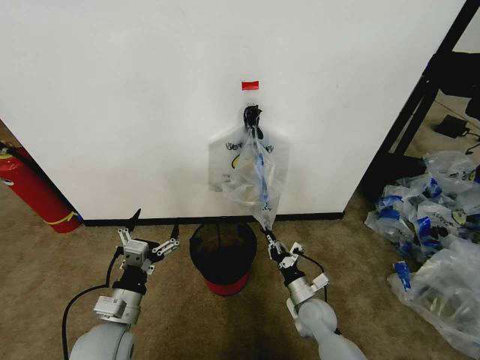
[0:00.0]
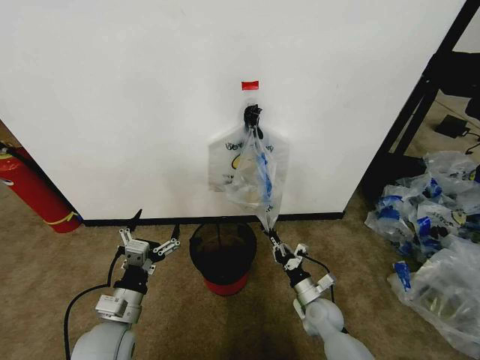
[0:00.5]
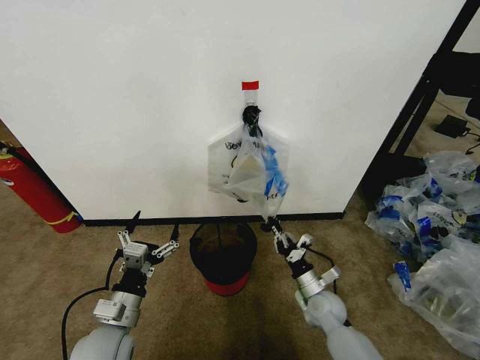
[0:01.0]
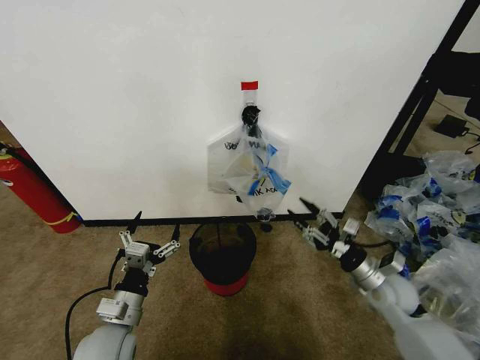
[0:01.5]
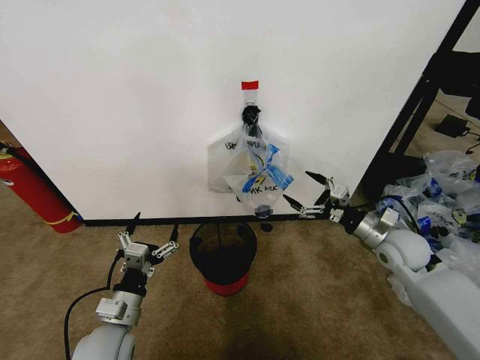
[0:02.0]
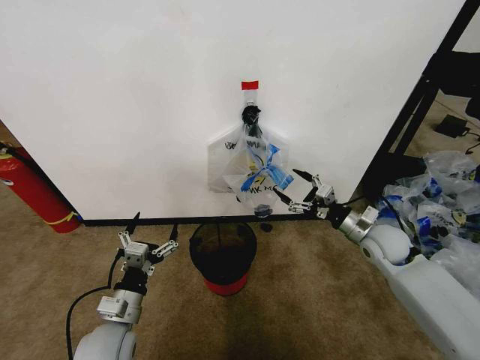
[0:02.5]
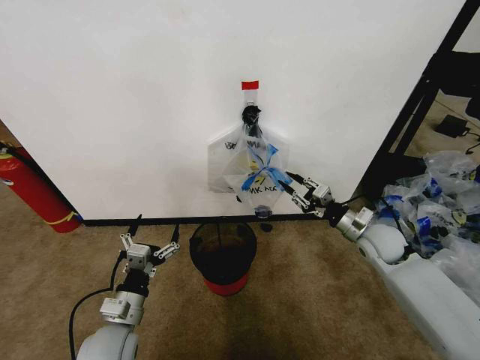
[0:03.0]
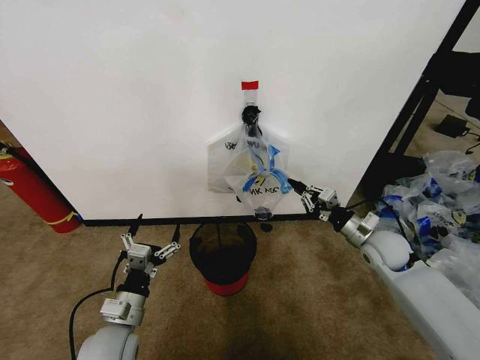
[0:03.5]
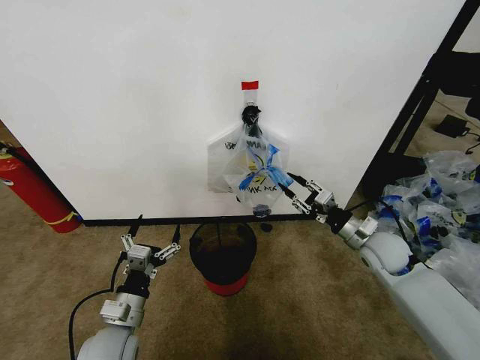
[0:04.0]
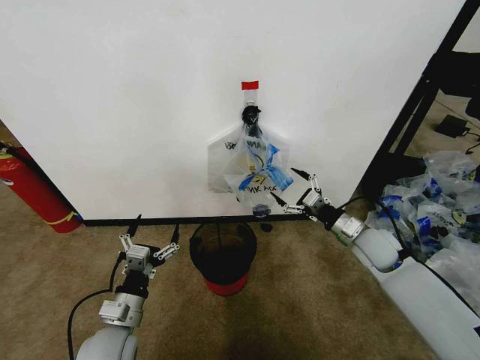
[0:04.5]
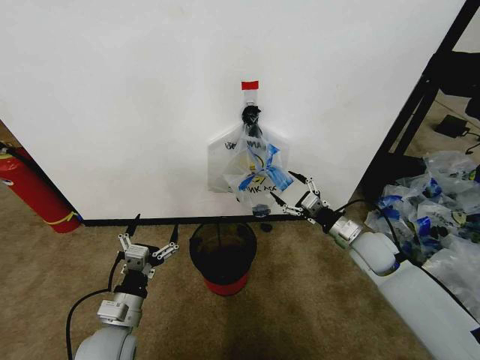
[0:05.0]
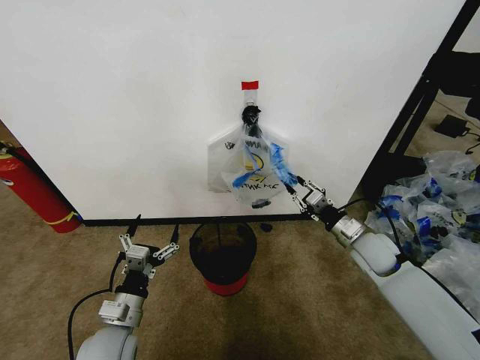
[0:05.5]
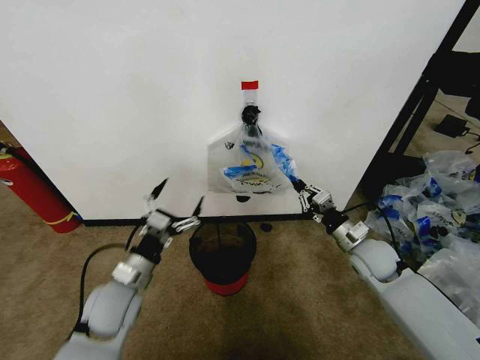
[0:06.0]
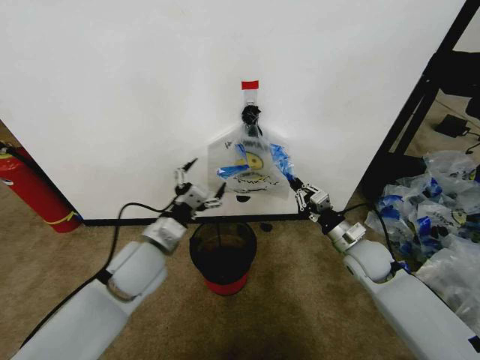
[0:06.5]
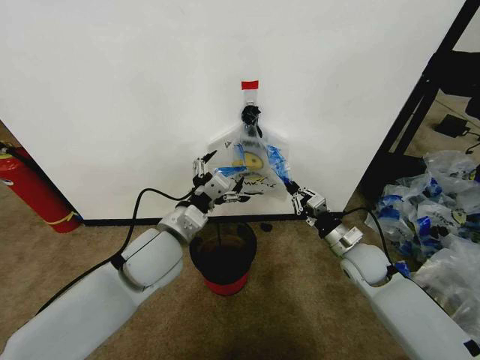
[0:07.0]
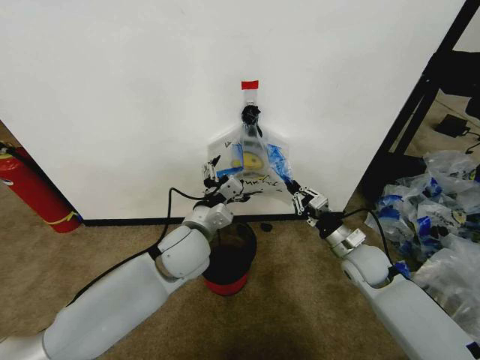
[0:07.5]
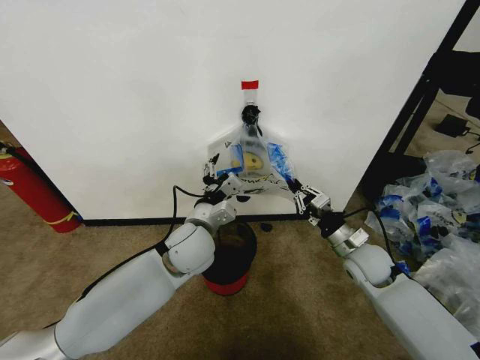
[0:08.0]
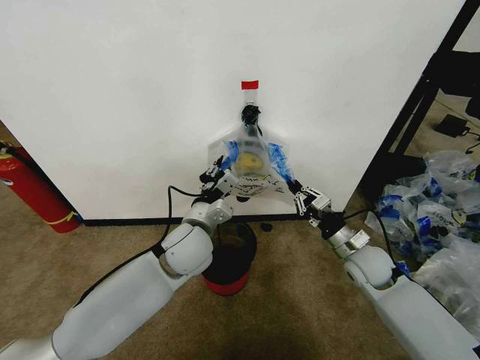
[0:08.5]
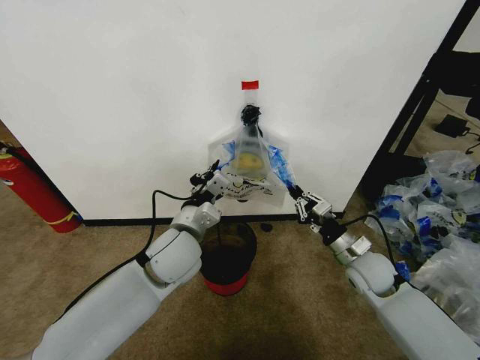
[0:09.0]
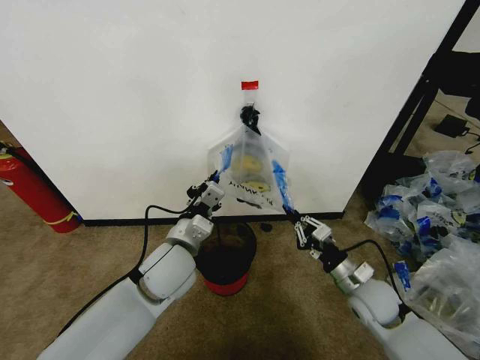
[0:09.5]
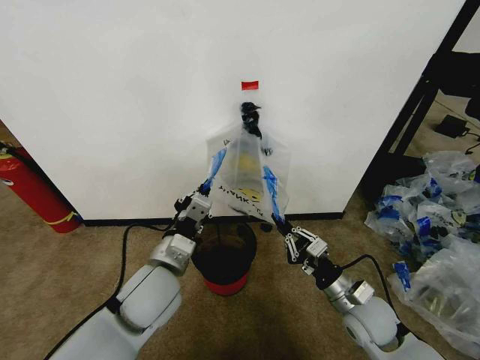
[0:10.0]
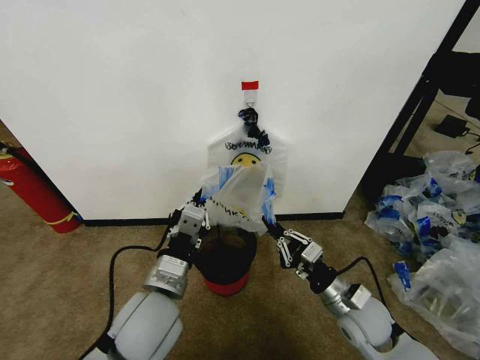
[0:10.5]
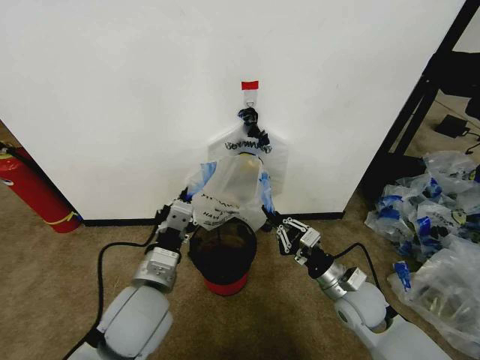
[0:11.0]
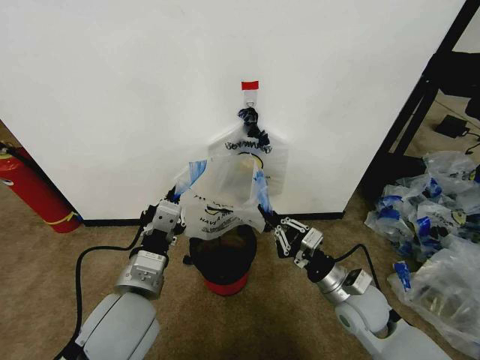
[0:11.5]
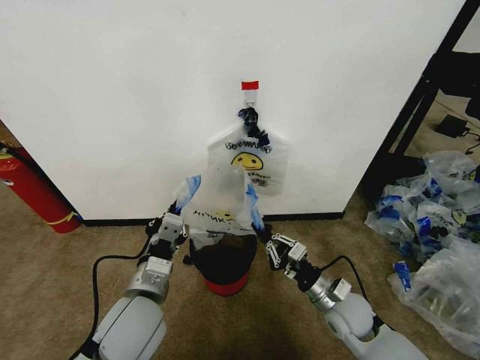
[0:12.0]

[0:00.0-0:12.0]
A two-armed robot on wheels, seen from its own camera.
Task of the whole recording: Pick up the garbage bag from the wall and place it over the trash bin.
0:00.0 to 0:02.0: The right gripper moves upward and to the right, approximately 25 cm, and opens up.
0:02.0 to 0:04.0: The right gripper closes up.
0:04.0 to 0:06.0: The right gripper opens, then closes once more. Meanwhile the left gripper shifts approximately 5 cm forward.
0:06.0 to 0:08.0: The left gripper is displaced to the right, forward and upward by approximately 20 cm.
0:08.0 to 0:10.0: The right gripper goes about 10 cm backward; the left gripper travels backward and to the left by roughly 10 cm, and closes.
0:10.0 to 0:12.0: The left gripper is displaced backward by roughly 5 cm.

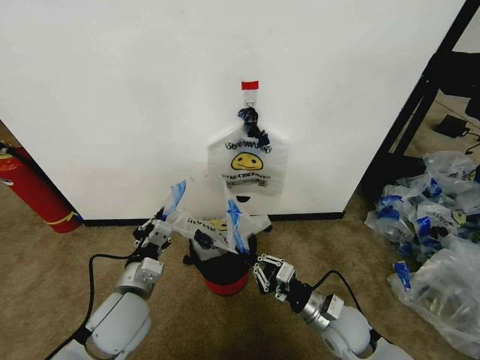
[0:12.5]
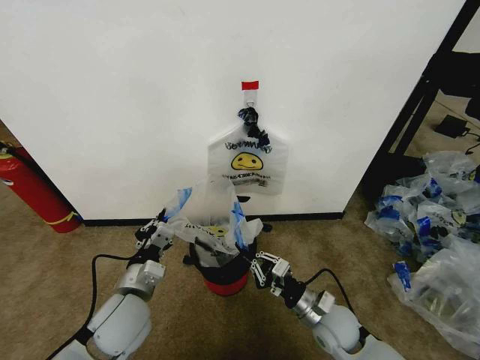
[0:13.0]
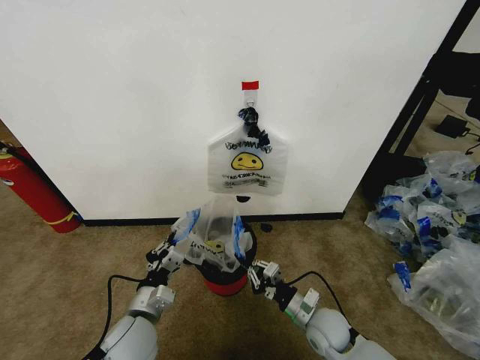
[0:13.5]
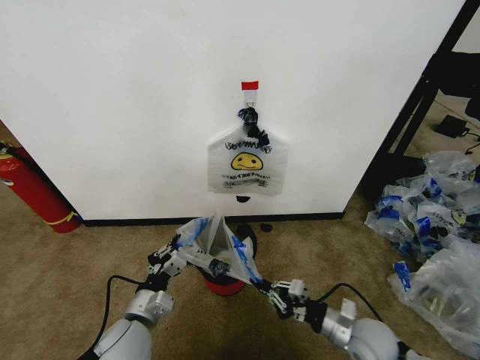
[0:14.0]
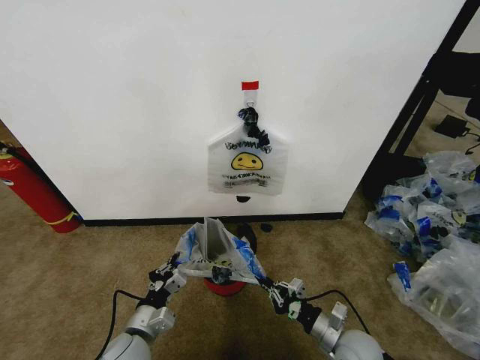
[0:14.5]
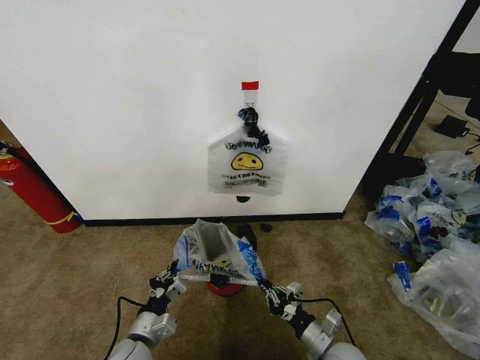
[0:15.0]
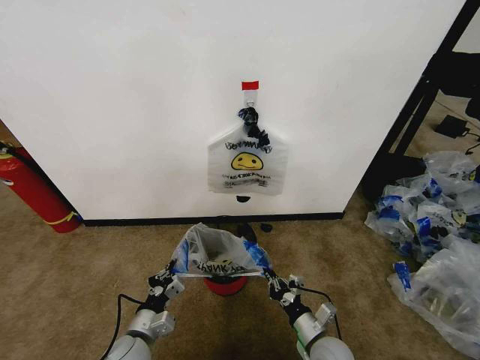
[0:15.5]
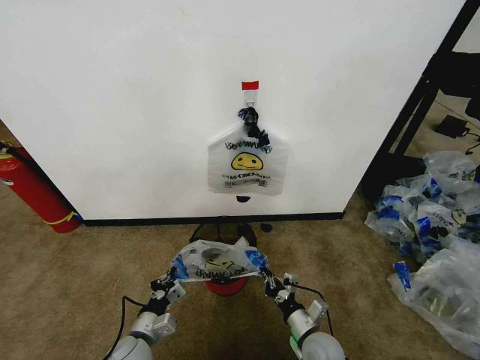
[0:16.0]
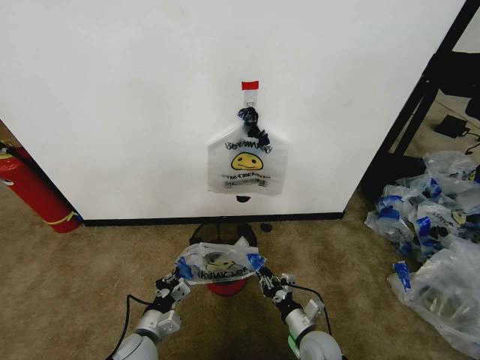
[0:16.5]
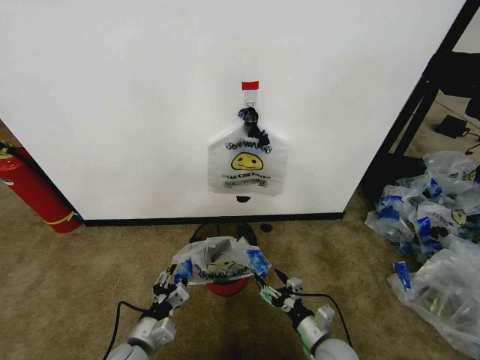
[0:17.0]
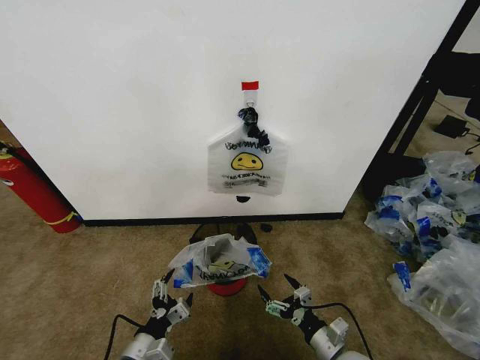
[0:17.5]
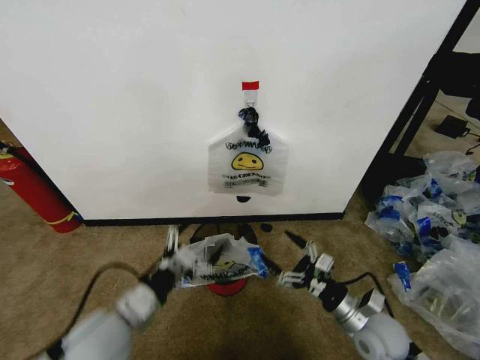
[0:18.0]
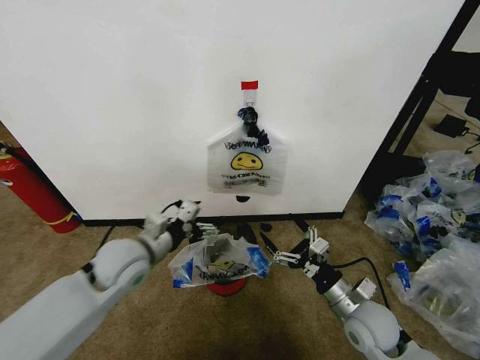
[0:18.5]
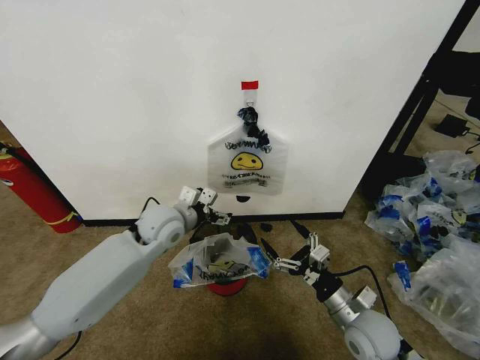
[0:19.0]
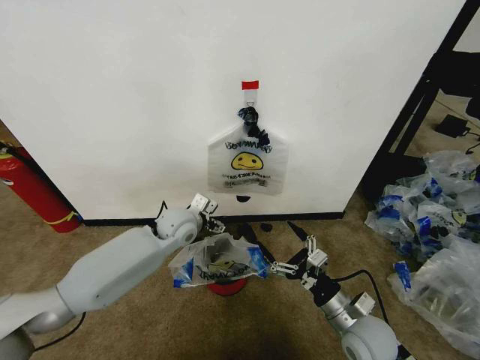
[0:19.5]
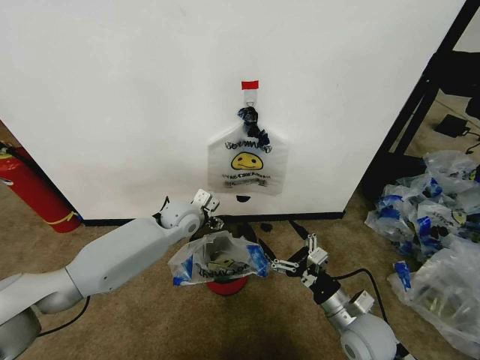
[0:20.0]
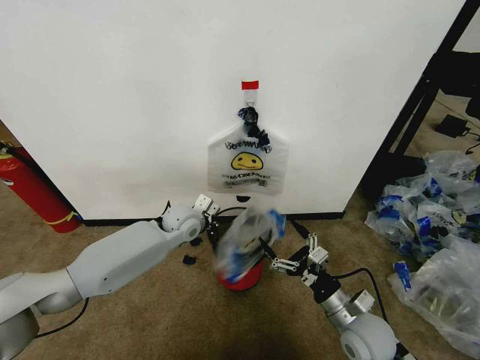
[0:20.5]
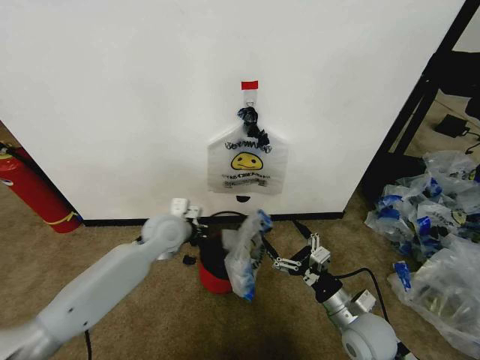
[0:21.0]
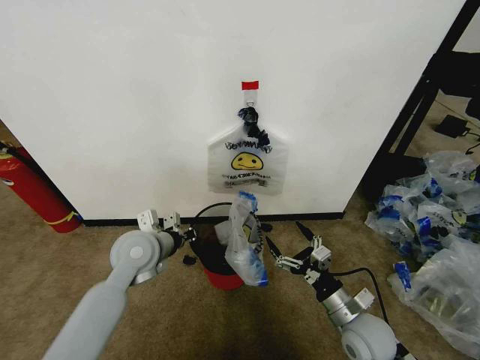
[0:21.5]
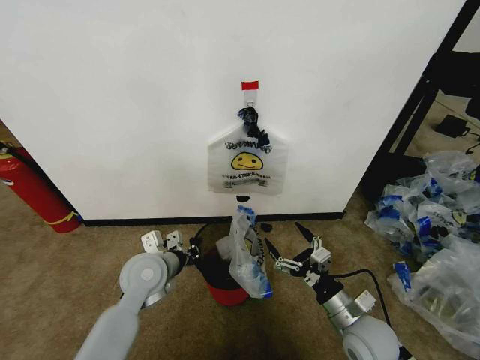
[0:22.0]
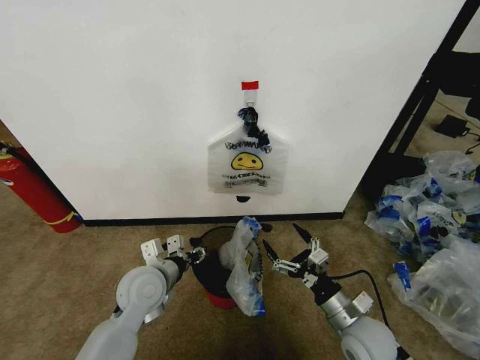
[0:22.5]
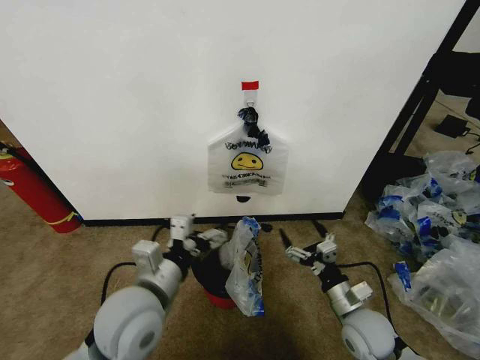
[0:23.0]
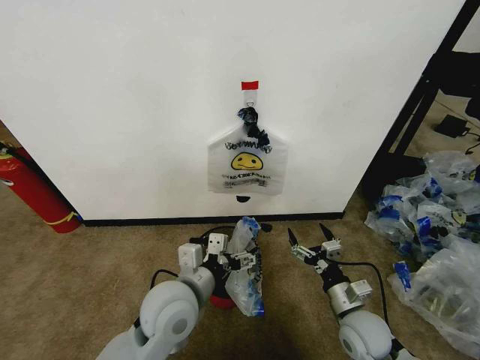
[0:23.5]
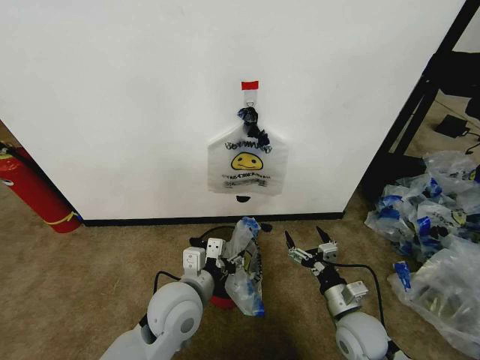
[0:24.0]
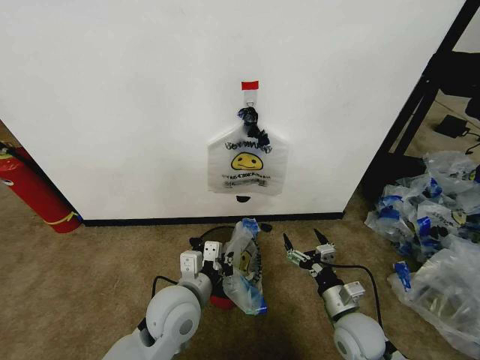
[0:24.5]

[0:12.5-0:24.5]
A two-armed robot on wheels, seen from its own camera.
Task of the whole recording: Pick up the garbage bag from the wall and place it over the trash bin.
0:12.5 to 0:14.5: The right gripper shifts some 5 cm downward. Meanwhile the left gripper travels downward by roughly 10 cm.
0:14.5 to 0:16.5: The right gripper moves to the left and downward, about 10 cm, while the left gripper heads downward, covering approximately 5 cm.
0:16.5 to 0:18.5: The right gripper is displaced upward and to the right by about 15 cm, and opens its fingers; the left gripper travels upward and forward by roughly 25 cm, and opens its fingers.
0:18.5 to 0:20.5: The left gripper heads forward and to the right, covering about 15 cm, and closes.
0:20.5 to 0:22.5: The left gripper heads backward, covering about 15 cm.
0:22.5 to 0:24.5: The left gripper goes some 10 cm to the right and backward, reaches about 10 cm upward, then returns, and closes its fingers.

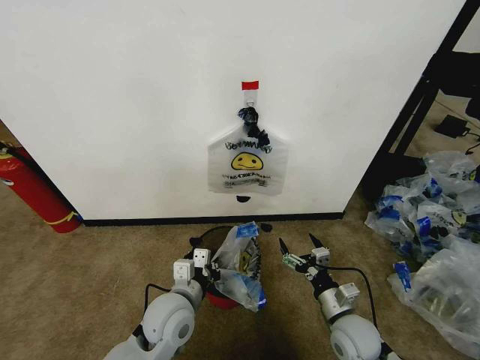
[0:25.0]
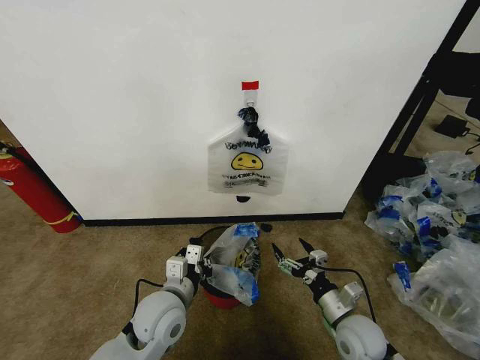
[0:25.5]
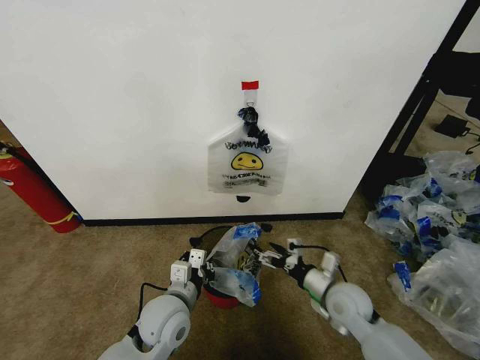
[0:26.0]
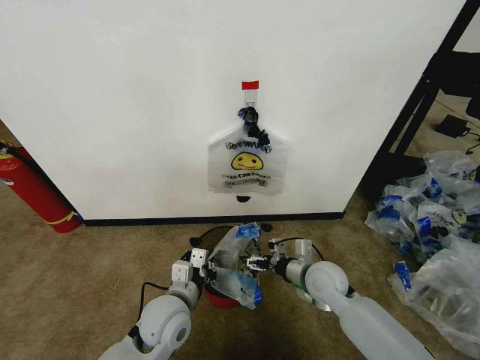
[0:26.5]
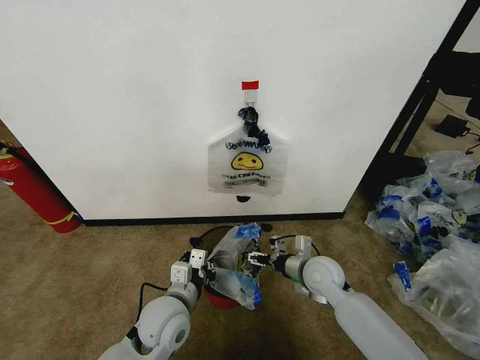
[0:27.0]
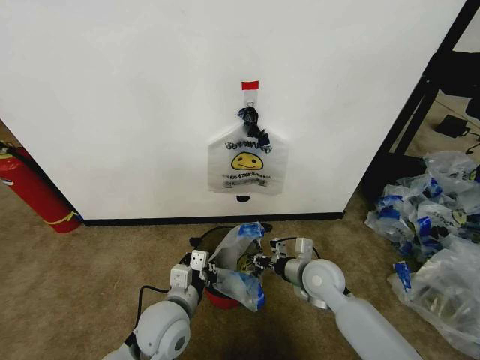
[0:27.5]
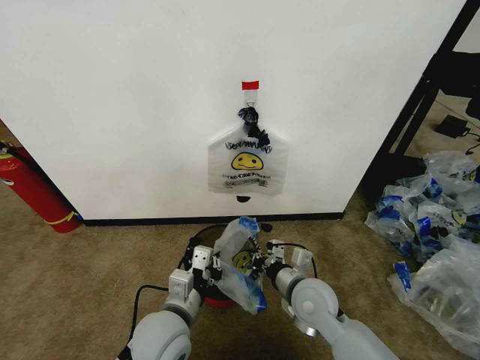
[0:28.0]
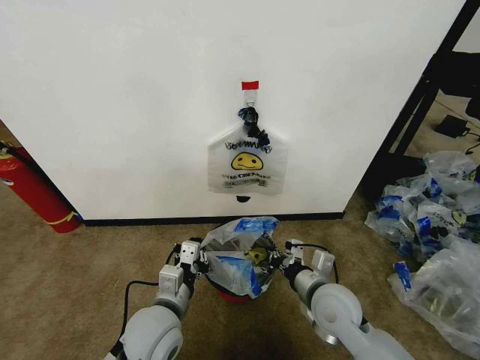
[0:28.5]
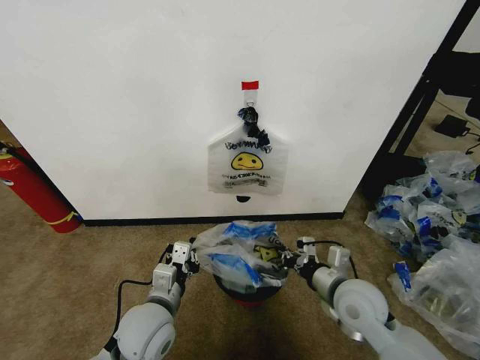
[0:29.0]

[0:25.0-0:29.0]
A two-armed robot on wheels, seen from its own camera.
Task of the whole recording: Pick up the garbage bag from the wall and place it over the trash bin.
0:25.0 to 0:27.0: The right gripper travels forward by about 10 cm.
0:27.0 to 0:29.0: The right gripper moves backward and upward, some 10 cm, and closes up.
